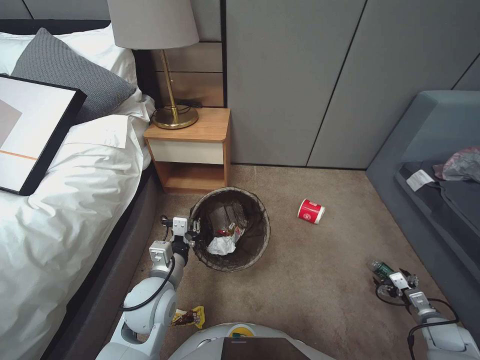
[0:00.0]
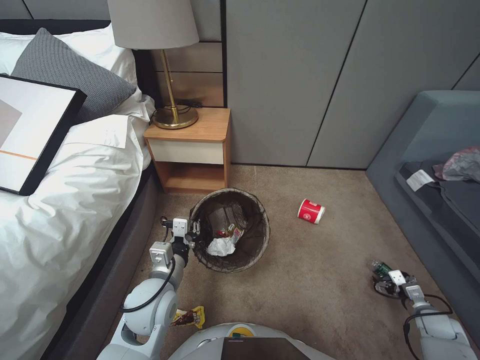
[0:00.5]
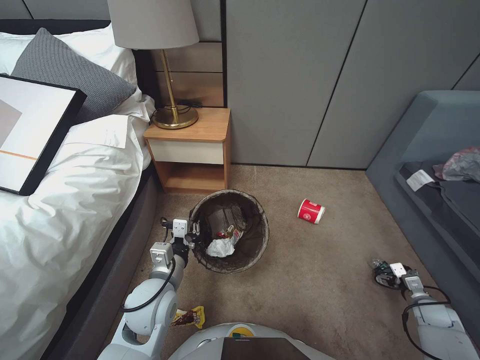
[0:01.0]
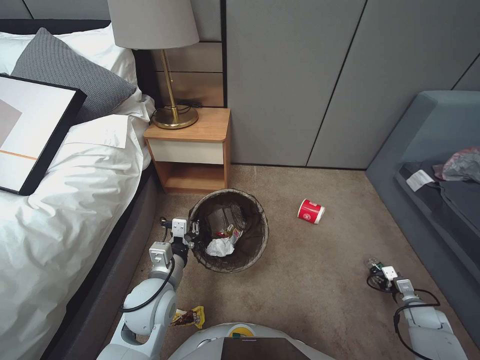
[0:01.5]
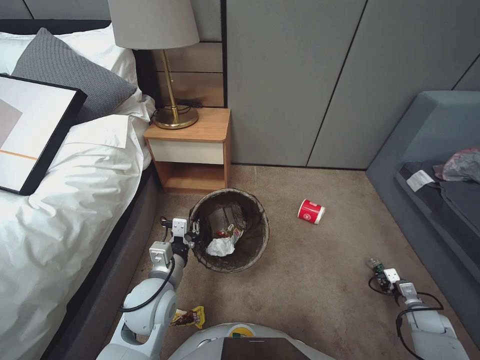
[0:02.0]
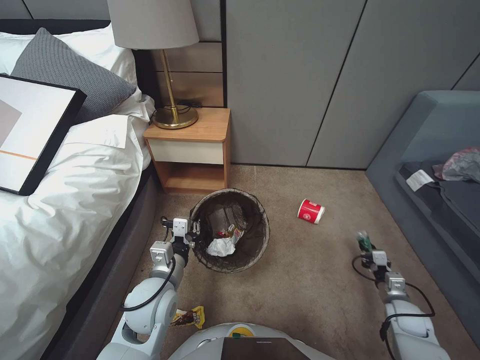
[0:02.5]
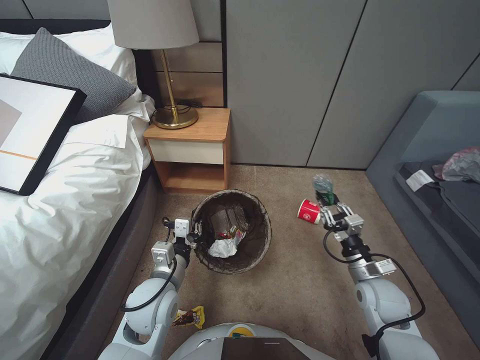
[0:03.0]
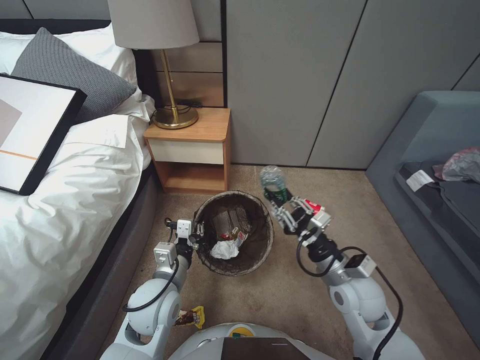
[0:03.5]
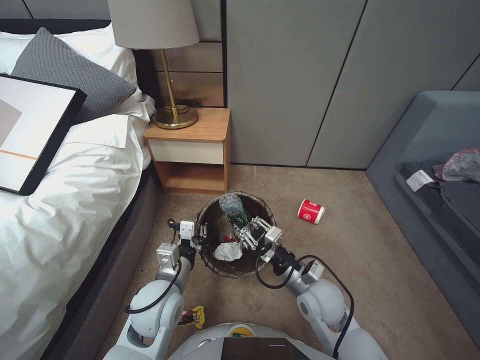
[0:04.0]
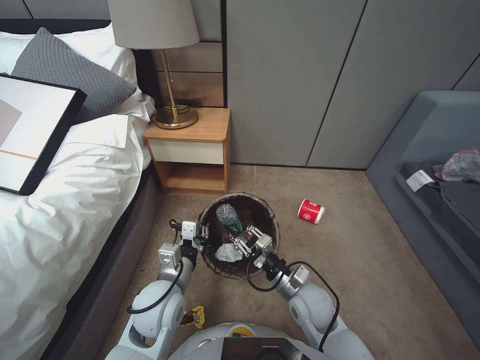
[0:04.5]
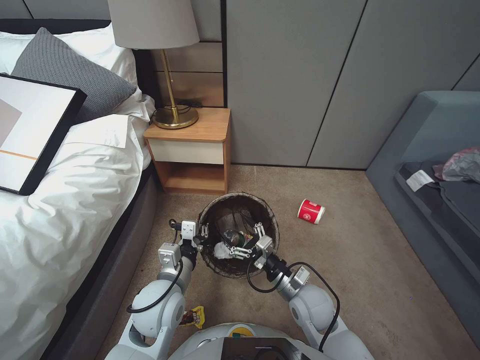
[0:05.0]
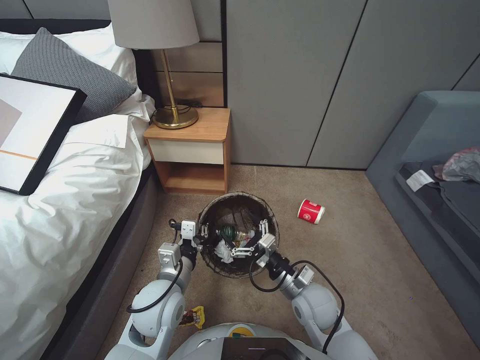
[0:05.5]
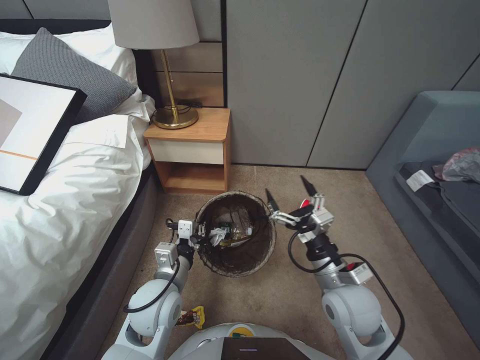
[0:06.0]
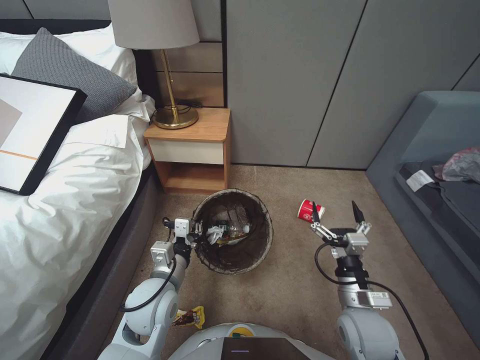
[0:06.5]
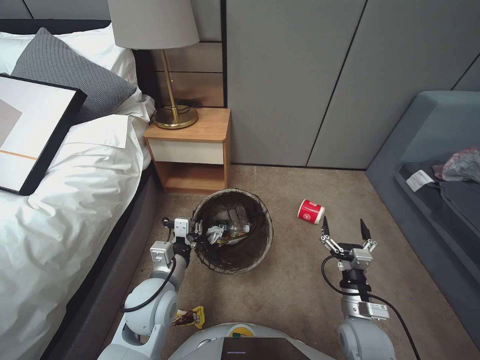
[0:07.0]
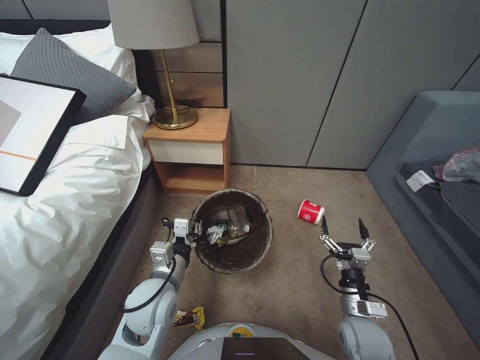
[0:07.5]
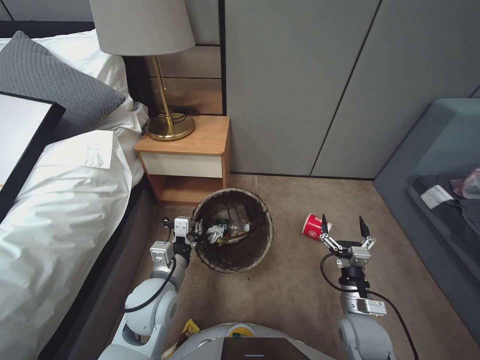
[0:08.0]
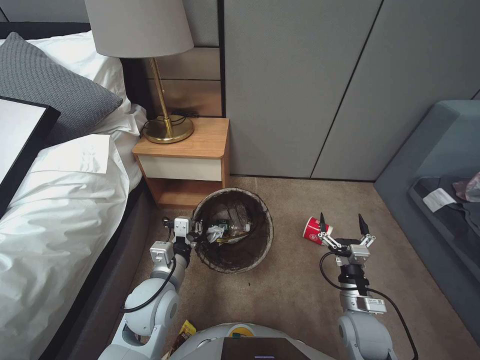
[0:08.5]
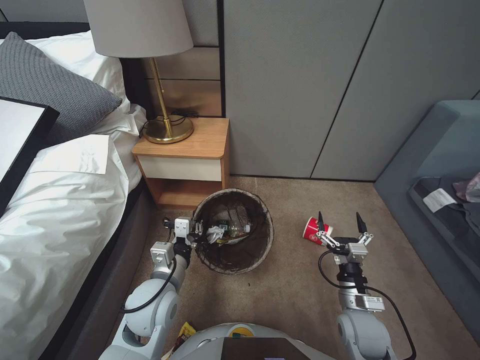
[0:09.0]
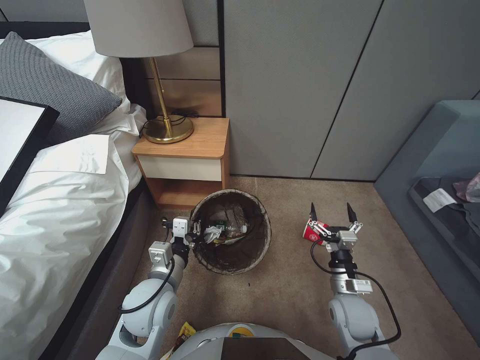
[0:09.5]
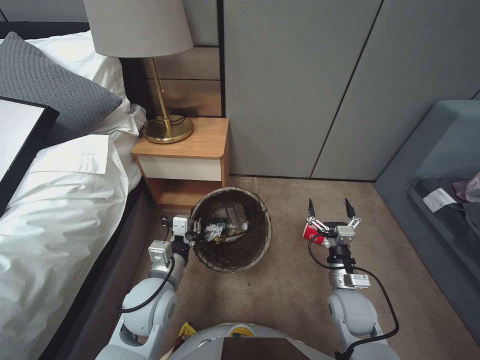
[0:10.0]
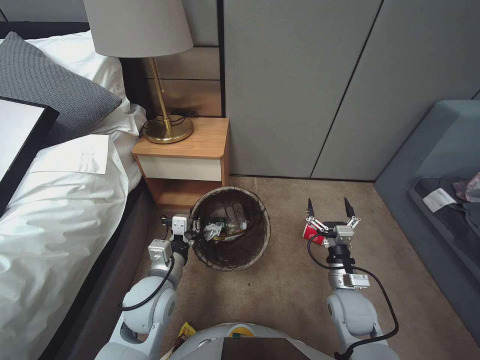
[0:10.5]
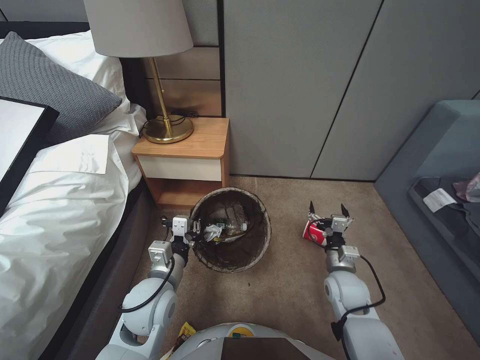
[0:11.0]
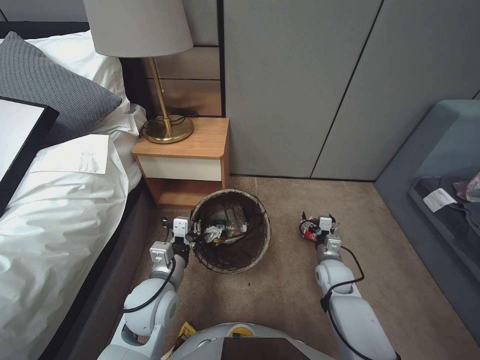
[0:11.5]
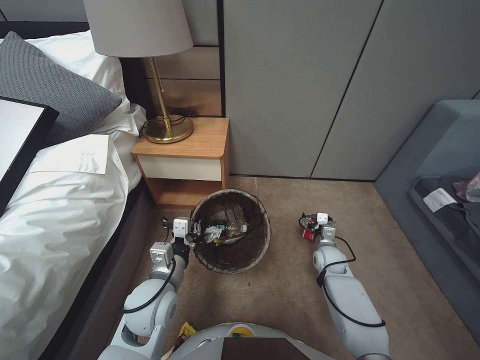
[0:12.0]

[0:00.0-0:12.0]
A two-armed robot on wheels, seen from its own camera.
Task of the whole recording: Pick up the trash bin, then pick up the garbage from the floor and place it into the trash bin.
0:00.0 to 0:02.0: The right gripper moves approximately 5 cm, and closes its fingers.
0:02.0 to 0:04.0: The right gripper travels to the left and upward by about 40 cm.
0:04.0 to 0:06.0: The right gripper reaches about 5 cm downward, then returns, and opens up.
0:06.0 to 0:08.0: The right gripper heads downward, to the right and backward, covering some 15 cm.
0:08.0 to 0:10.0: The right gripper heads forward, covering about 5 cm.
0:10.0 to 0:12.0: The right gripper goes some 15 cm forward and downward.

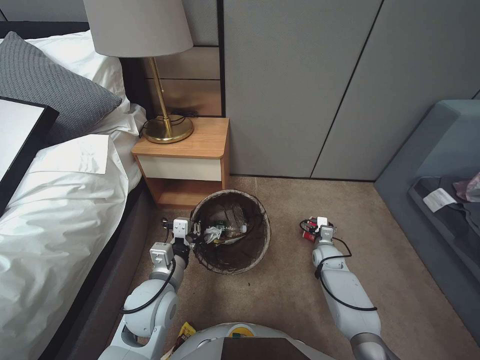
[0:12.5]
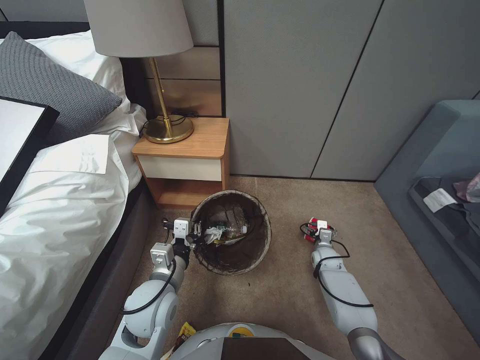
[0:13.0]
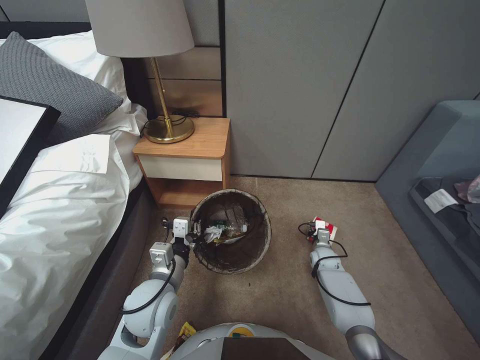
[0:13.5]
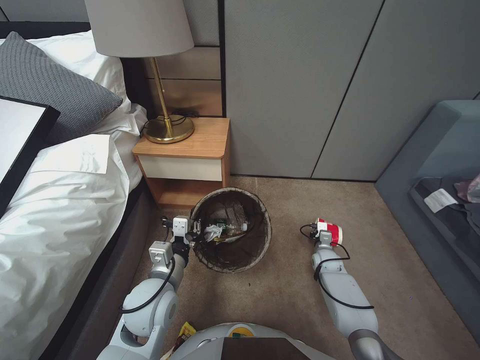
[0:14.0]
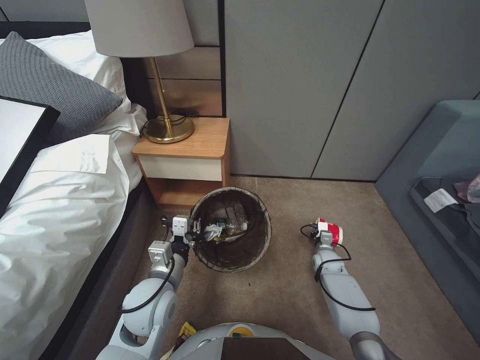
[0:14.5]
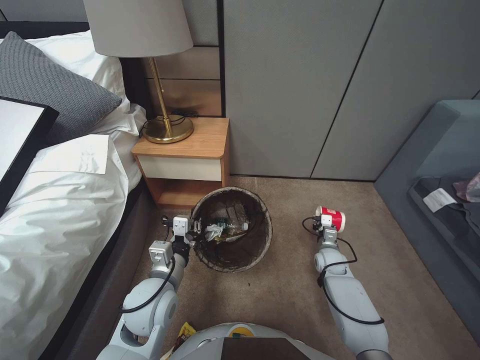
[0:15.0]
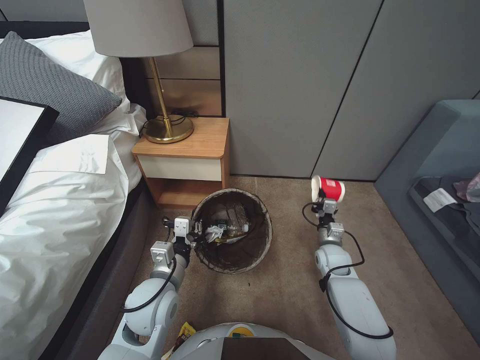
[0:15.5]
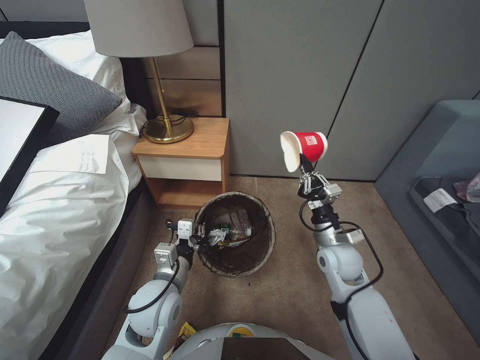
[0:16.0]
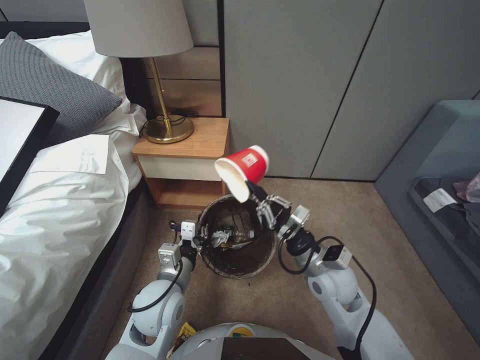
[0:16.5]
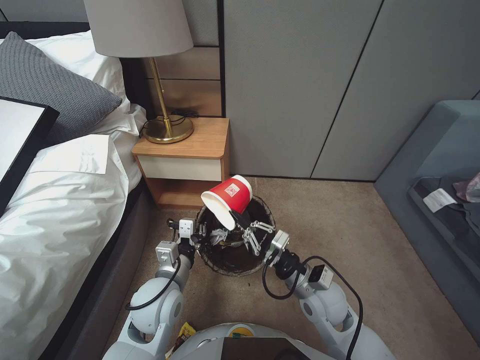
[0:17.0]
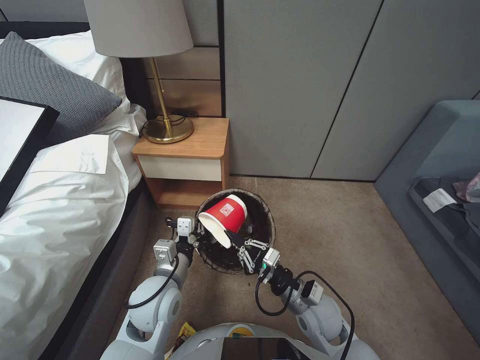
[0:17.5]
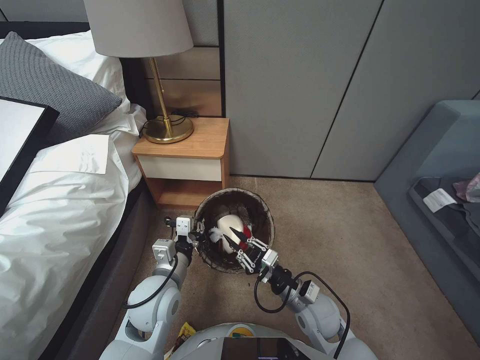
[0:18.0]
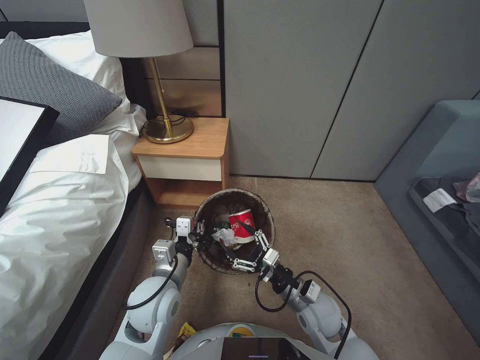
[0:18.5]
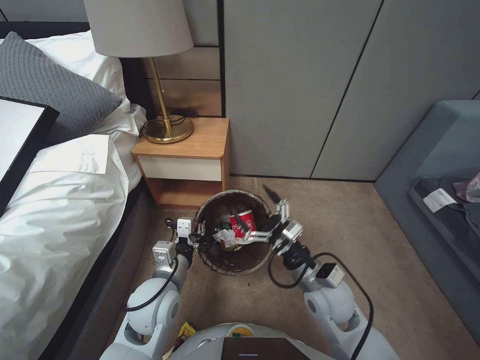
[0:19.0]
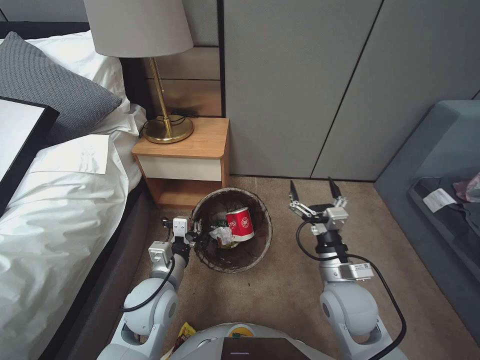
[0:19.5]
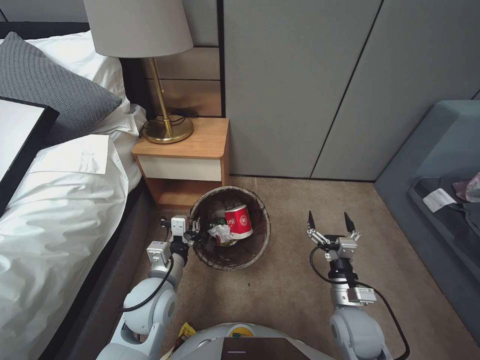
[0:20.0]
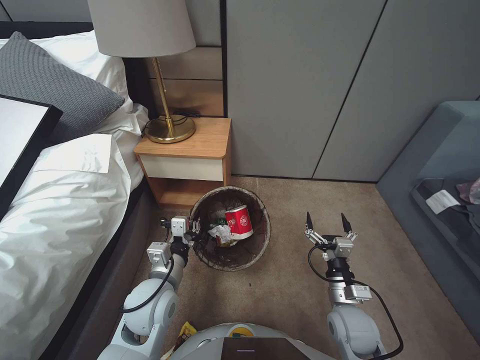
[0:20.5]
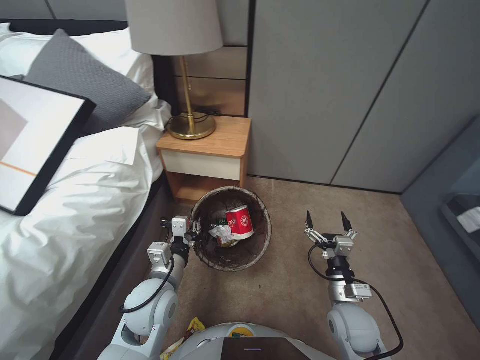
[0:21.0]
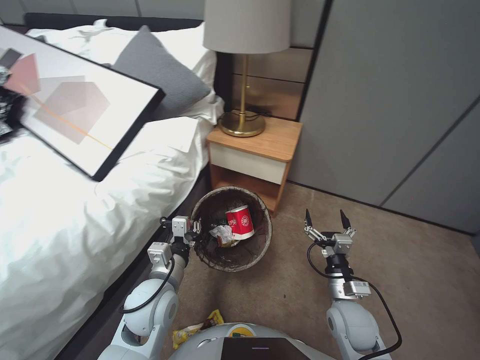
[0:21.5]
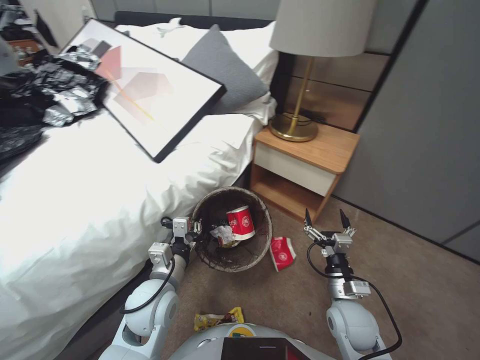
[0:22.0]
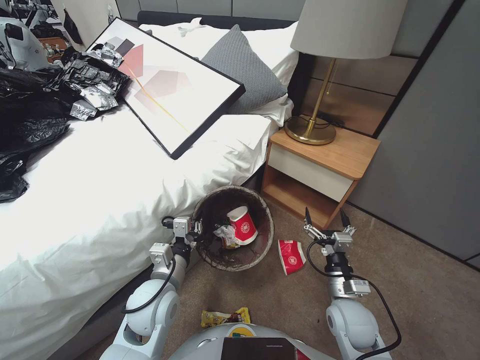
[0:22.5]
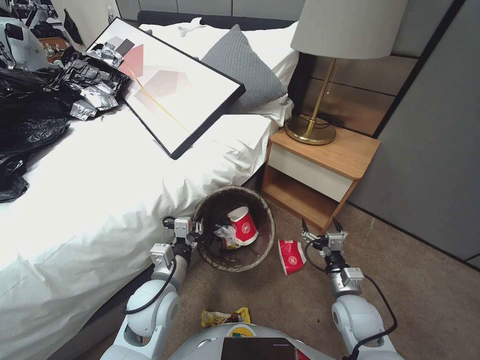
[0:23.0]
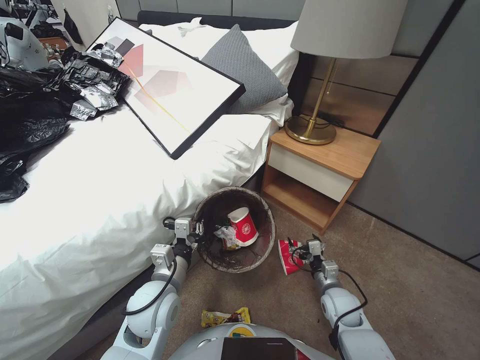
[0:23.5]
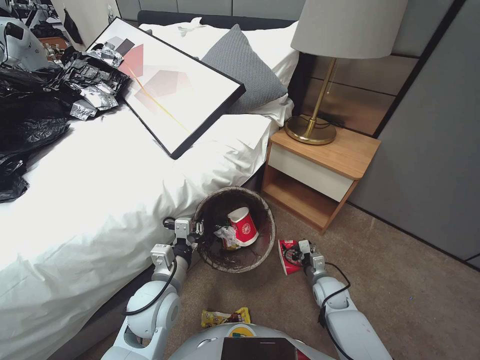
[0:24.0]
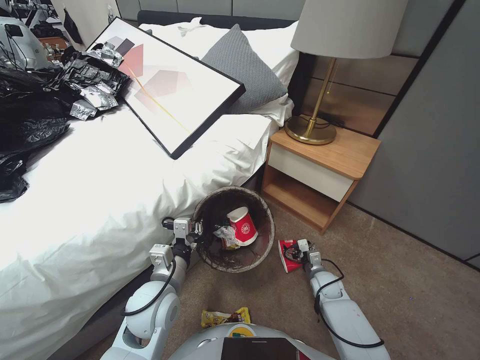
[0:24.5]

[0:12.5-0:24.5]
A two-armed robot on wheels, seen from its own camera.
Task of the whole recording: Pick up the trash bin, then pick up the garbage from the floor and place it into the trash bin.
0:12.5 to 0:14.5: The right gripper closes up.
0:14.5 to 0:16.5: The right gripper travels upward, to the left and backward by about 30 cm.
0:16.5 to 0:18.5: The right gripper is displaced downward by roughly 10 cm, and opens its fingers.
0:18.5 to 0:20.5: The right gripper is displaced to the right by roughly 5 cm, moves roughly 10 cm upward and comes back, and opens its fingers.
0:22.5 to 0:24.5: The right gripper is displaced downward and forward by about 20 cm.

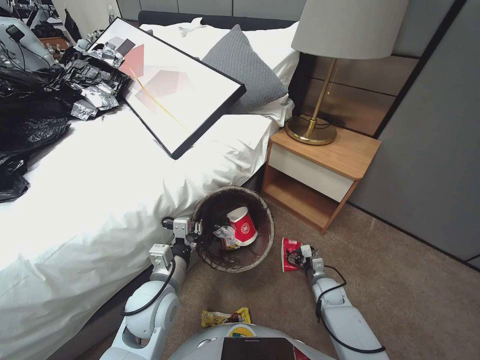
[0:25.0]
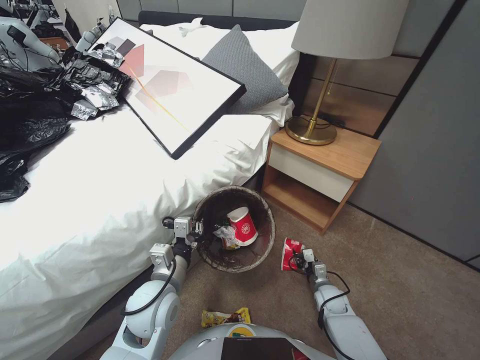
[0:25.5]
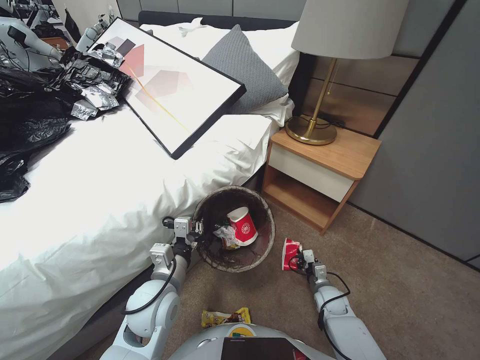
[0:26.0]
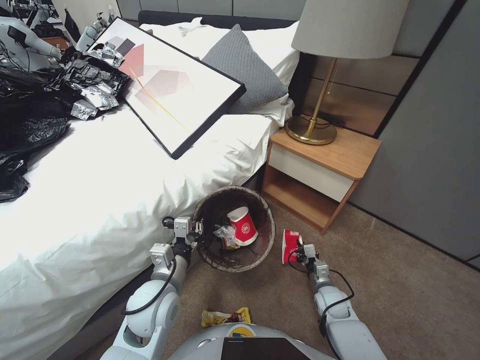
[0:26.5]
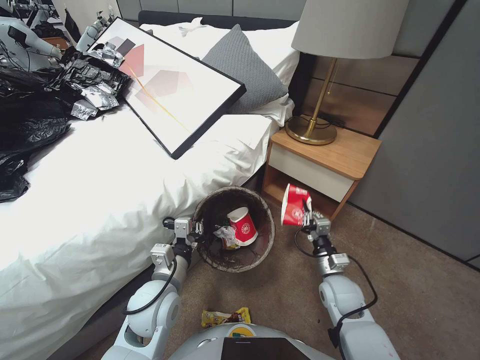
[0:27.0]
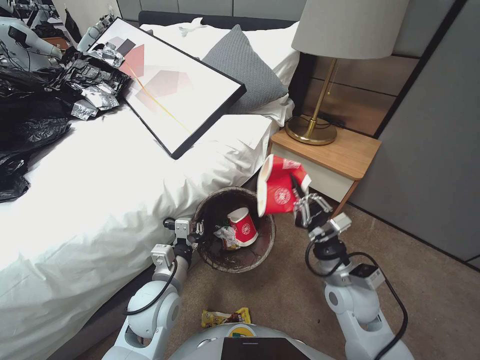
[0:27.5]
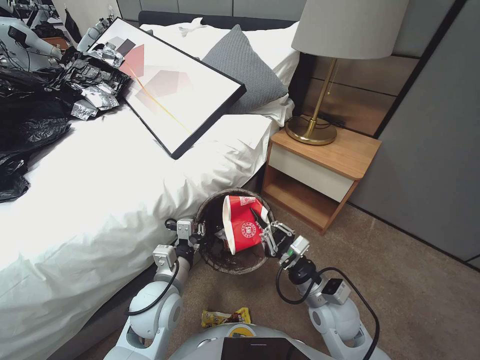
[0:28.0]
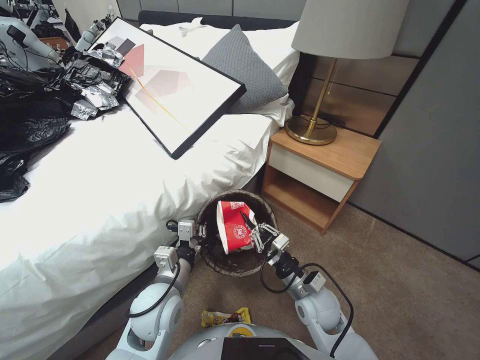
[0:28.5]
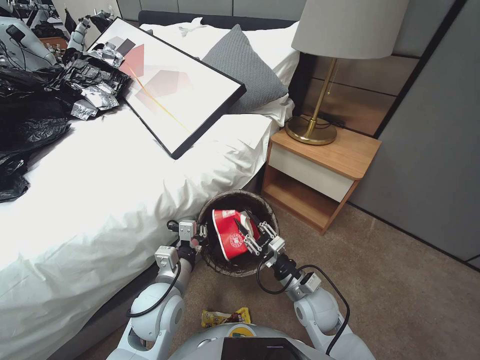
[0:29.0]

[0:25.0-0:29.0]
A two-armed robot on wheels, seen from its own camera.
Task of the whole recording: Pick up the trash bin, then pick up the garbage from the floor and place it into the trash bin.
0:25.0 to 0:27.0: The right gripper travels upward and backward by some 15 cm, and closes.
0:27.0 to 0:29.0: The right gripper shifts some 10 cm to the left, and goes upward and returns, about 10 cm each way.
